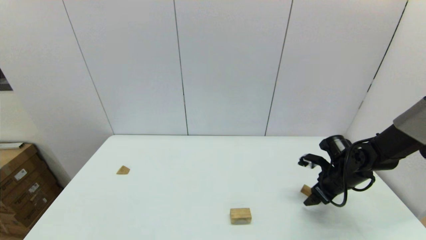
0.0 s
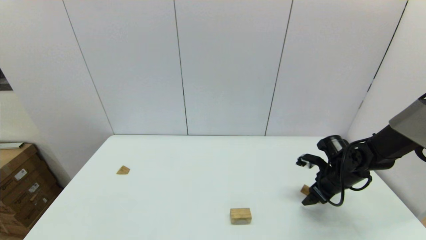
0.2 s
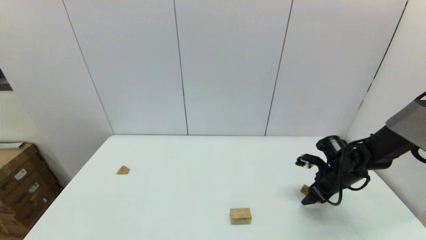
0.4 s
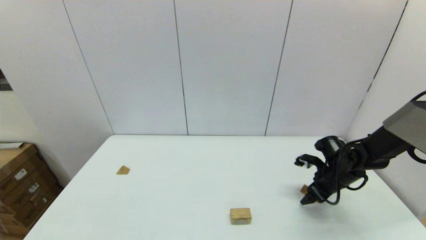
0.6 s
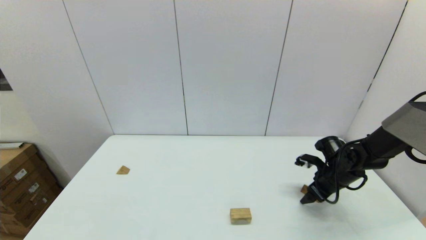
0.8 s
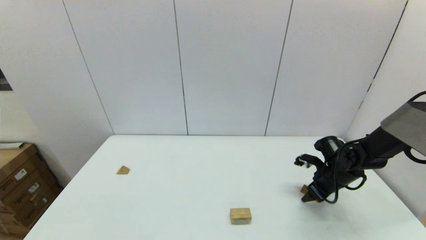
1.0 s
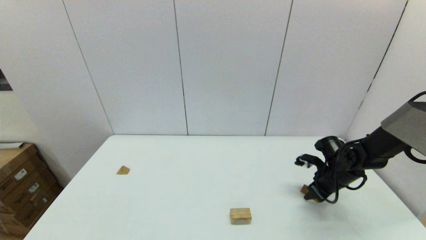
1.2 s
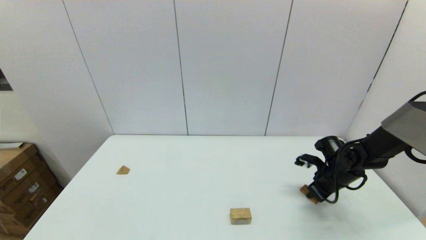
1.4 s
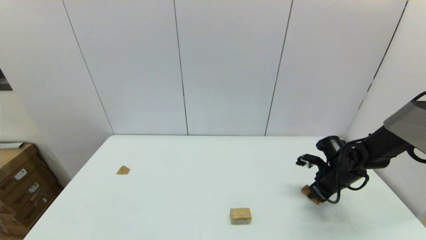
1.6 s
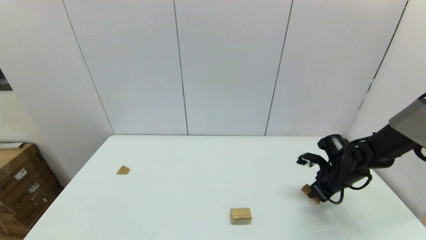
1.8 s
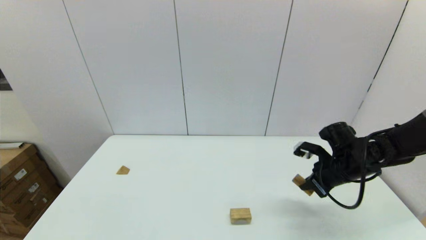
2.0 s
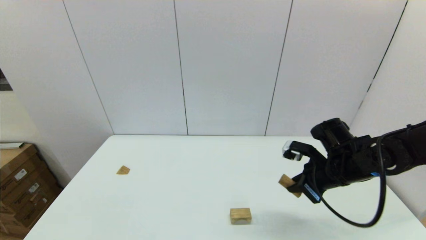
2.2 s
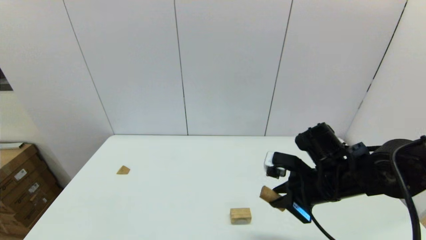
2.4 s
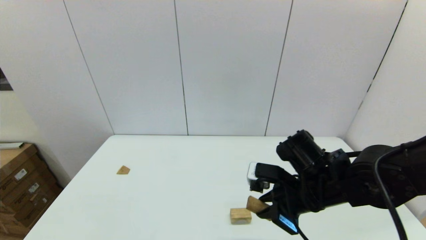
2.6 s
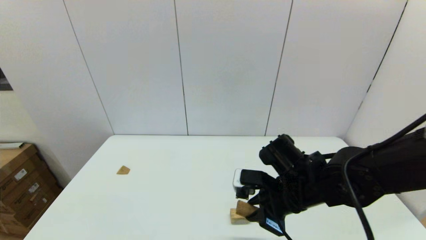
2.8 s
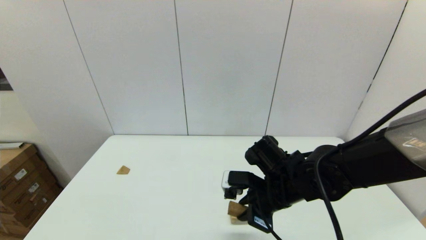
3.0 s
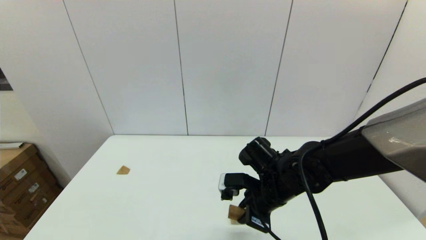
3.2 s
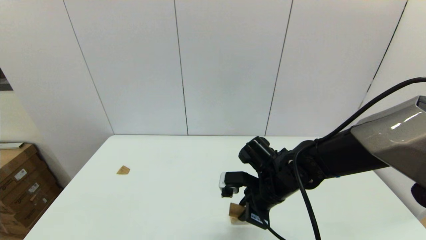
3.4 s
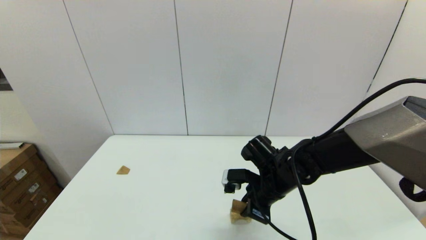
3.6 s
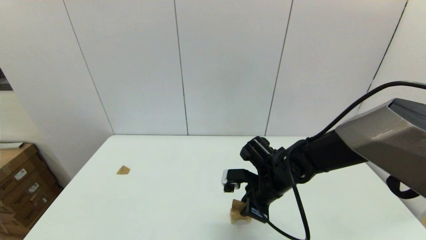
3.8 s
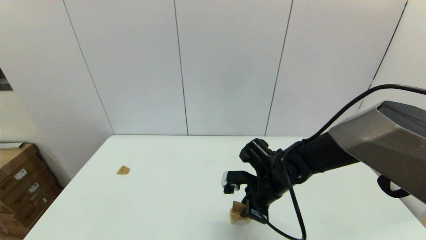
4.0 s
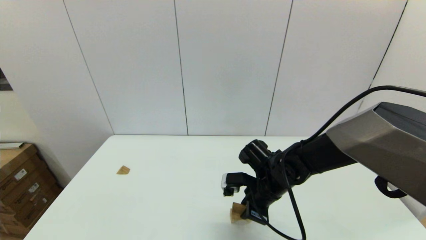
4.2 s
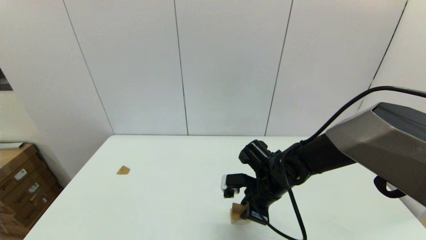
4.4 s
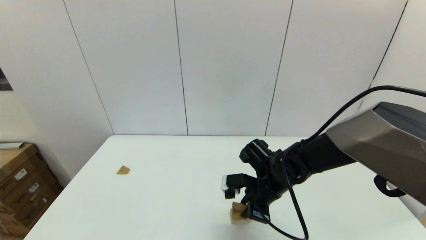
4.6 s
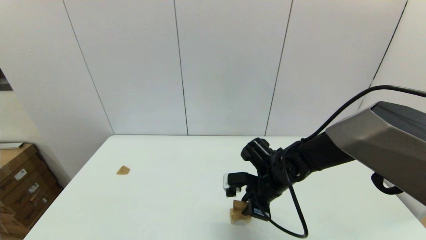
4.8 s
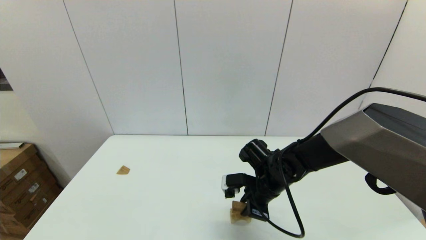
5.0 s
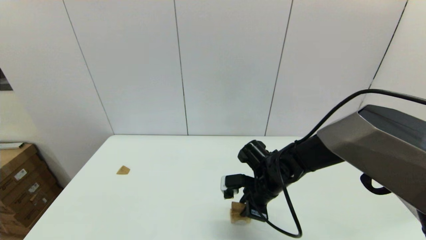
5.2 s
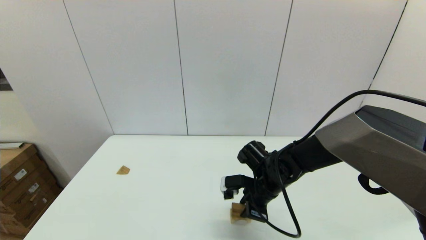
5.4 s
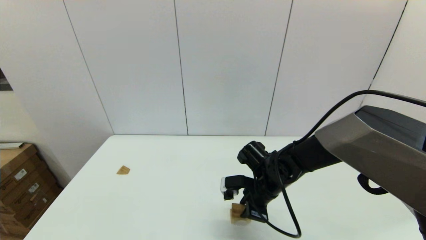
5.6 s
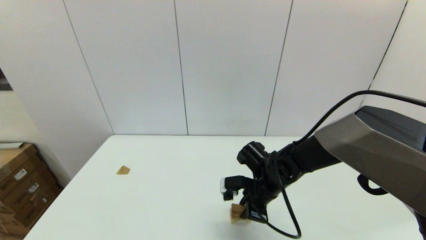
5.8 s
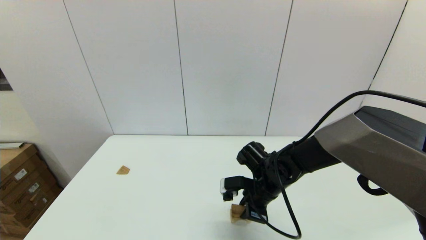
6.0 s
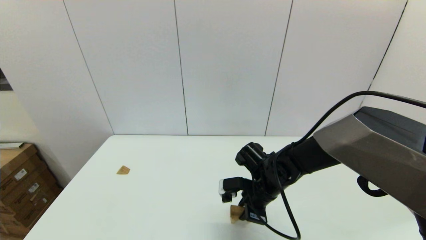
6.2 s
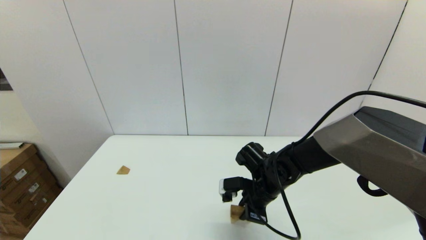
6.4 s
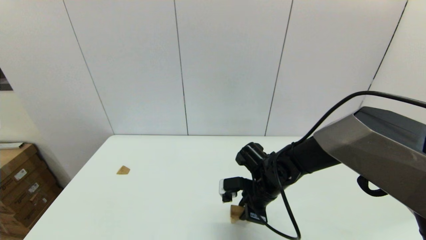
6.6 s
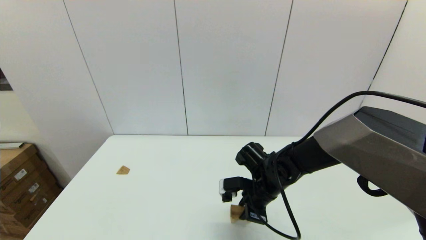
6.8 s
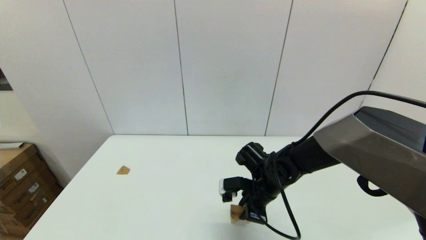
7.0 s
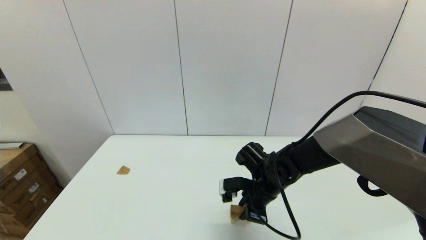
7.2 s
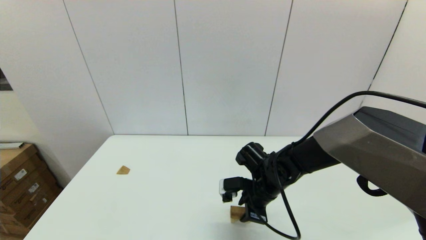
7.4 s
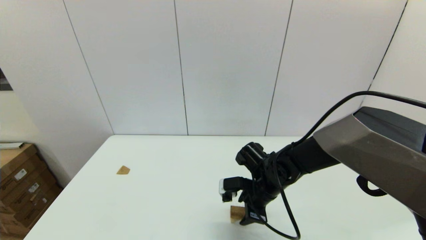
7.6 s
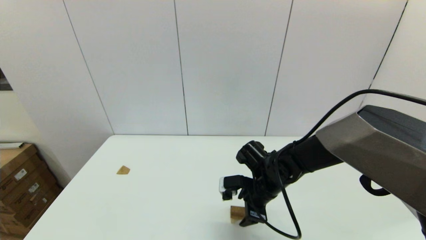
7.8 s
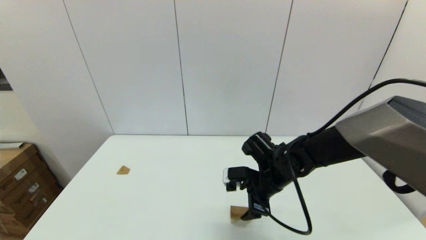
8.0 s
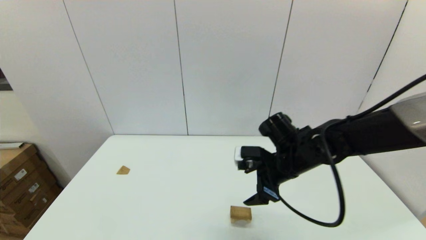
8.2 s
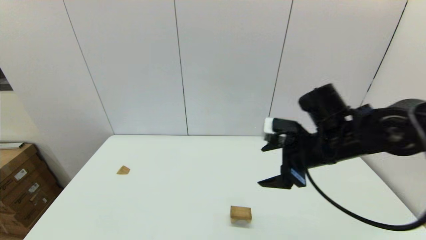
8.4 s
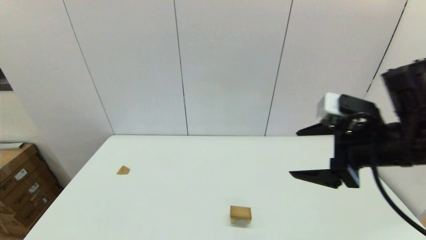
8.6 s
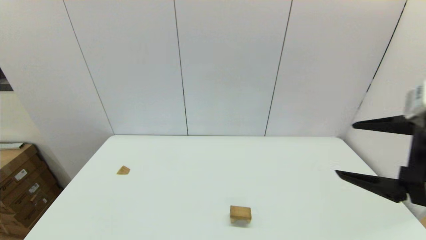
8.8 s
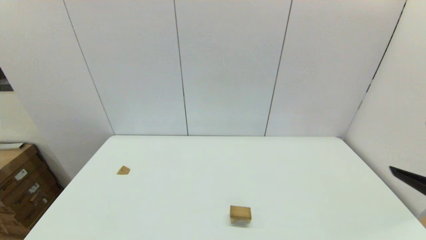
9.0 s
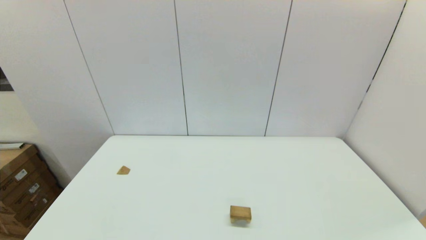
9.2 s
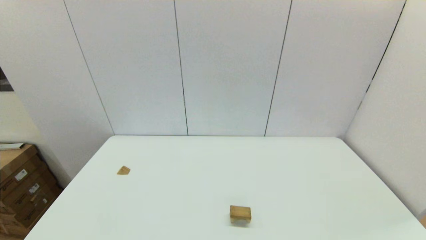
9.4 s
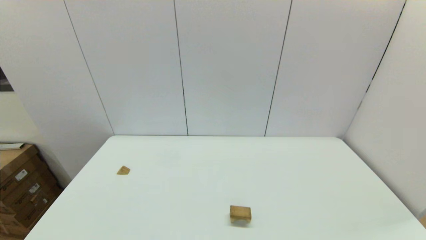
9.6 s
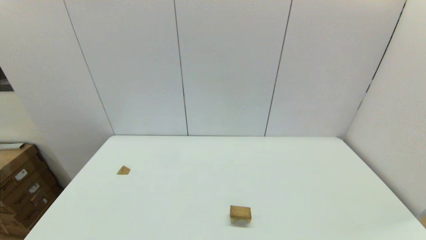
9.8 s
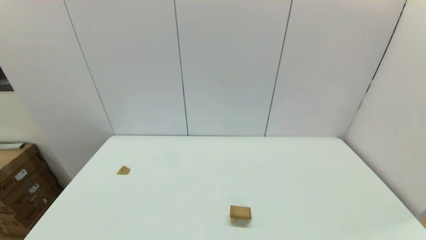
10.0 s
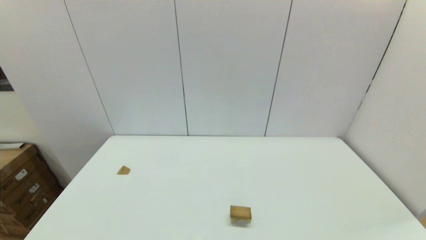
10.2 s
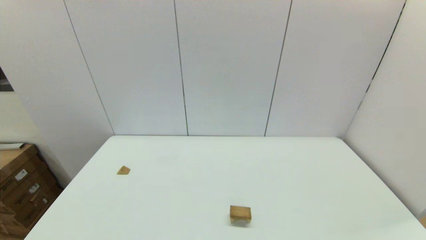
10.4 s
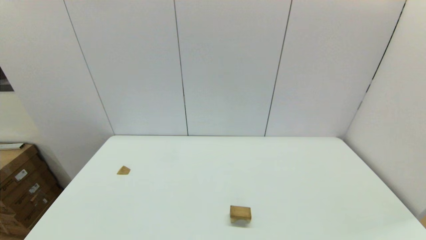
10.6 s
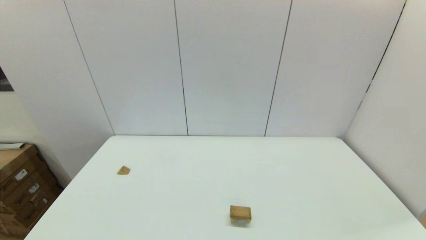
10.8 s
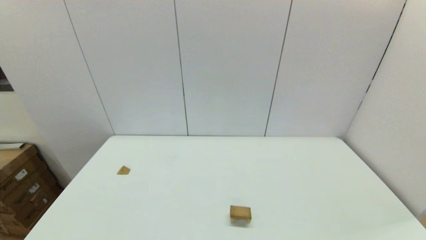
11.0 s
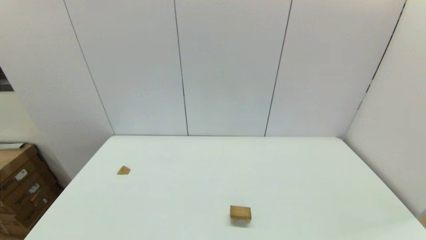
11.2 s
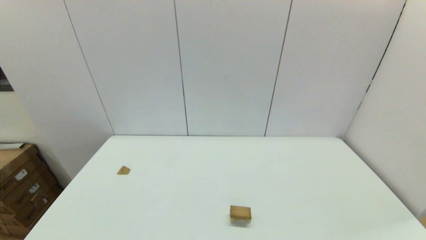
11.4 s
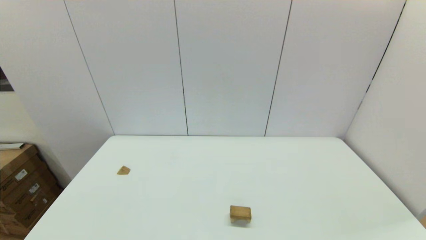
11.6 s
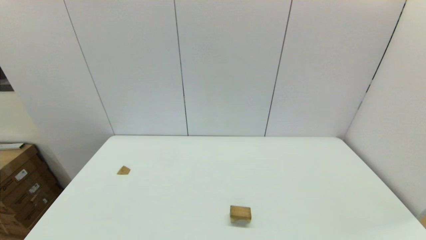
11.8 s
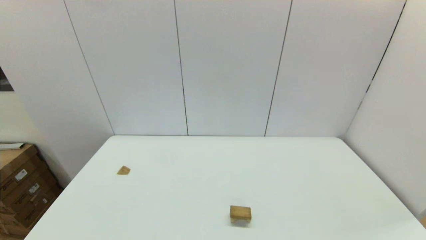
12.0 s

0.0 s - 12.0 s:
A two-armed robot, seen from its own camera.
Task of the whole recording: place the arched building blocks in the center of the table, set up the rectangular building blocks, and then set up the triangular building blocks.
Step, 1.6 s - 7.4 s: Place the box-shaped block onto the arch-shaped block with the right gripper.
0.0 s - 1.6 s: The right gripper closes its fingers.
1.6 s - 3.0 s: The right gripper is displaced to the left and backward by approximately 25 cm.
3.0 s - 4.4 s: The right gripper ends up some 5 cm from where it was.
4.4 s - 6.0 s: There are only small adjustments of the grippers.
6.0 s - 7.6 s: The right gripper opens its fingers.
7.6 s - 9.0 s: The right gripper moves upward, backward and to the right, approximately 40 cm, and opens.

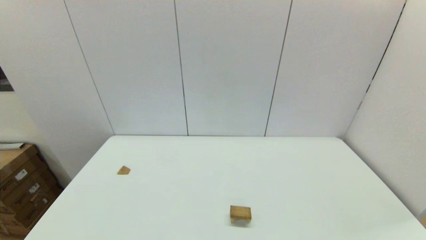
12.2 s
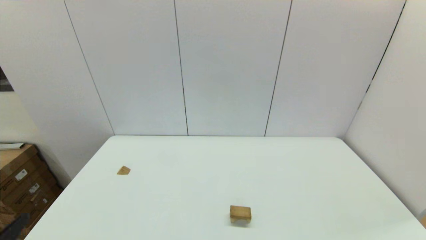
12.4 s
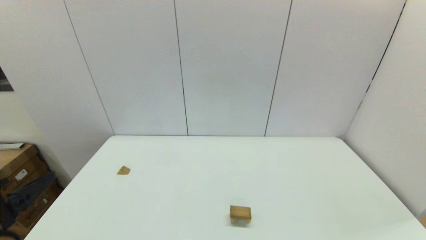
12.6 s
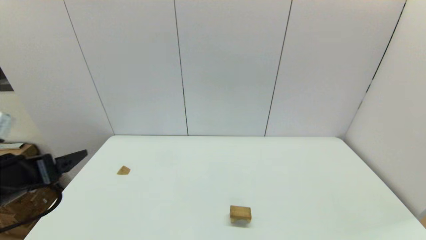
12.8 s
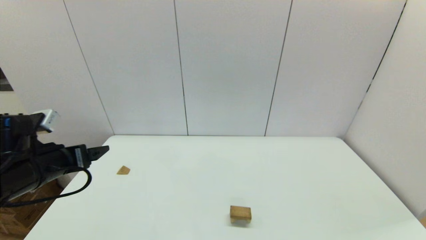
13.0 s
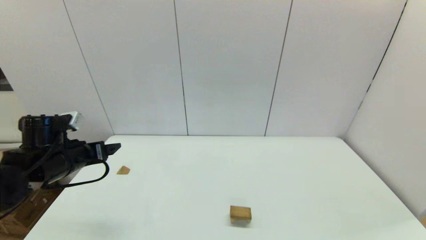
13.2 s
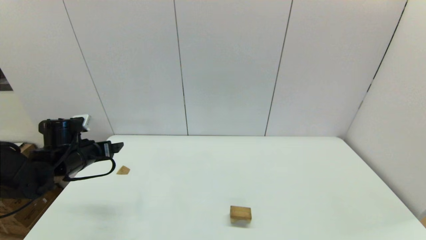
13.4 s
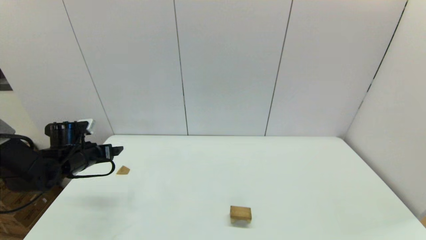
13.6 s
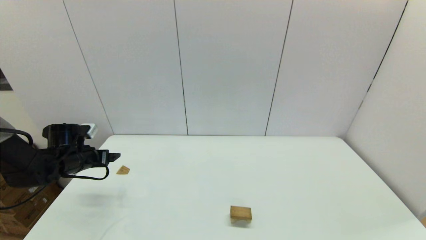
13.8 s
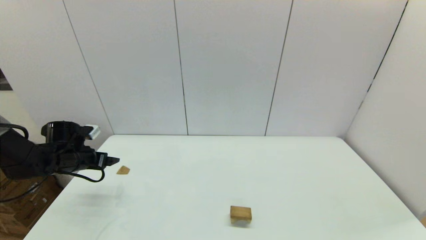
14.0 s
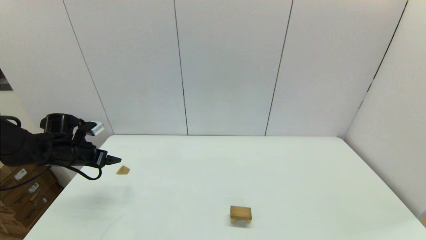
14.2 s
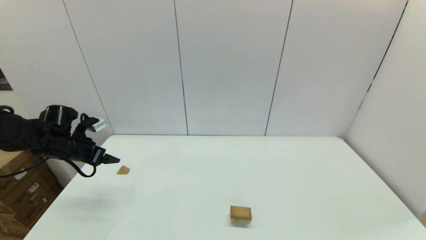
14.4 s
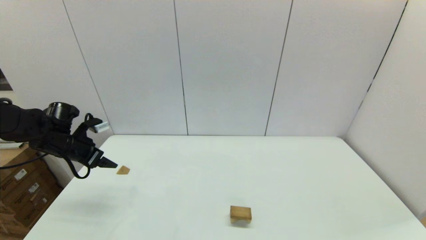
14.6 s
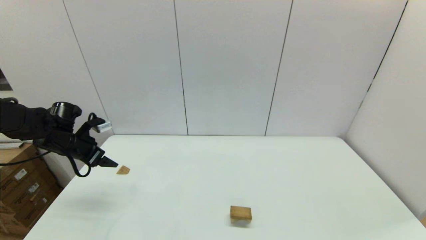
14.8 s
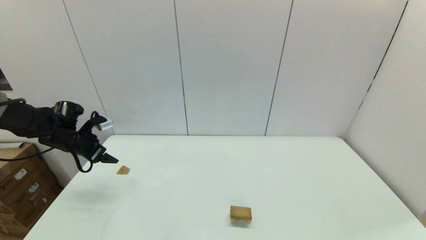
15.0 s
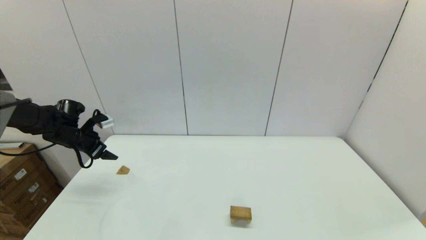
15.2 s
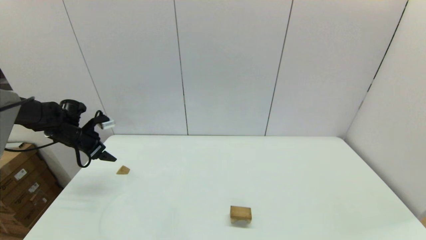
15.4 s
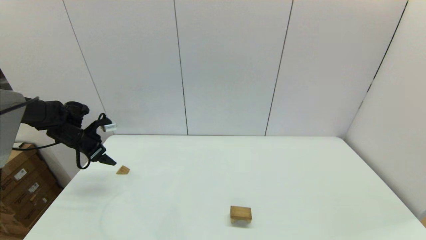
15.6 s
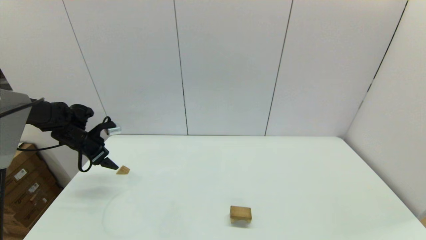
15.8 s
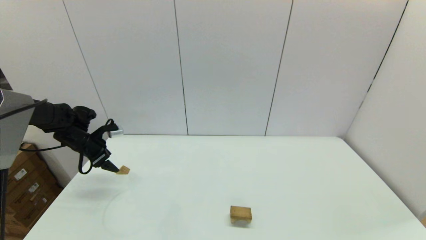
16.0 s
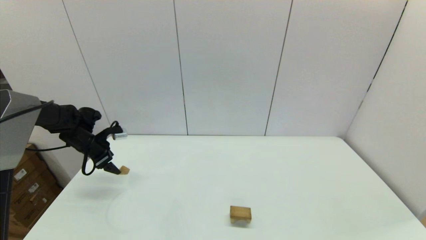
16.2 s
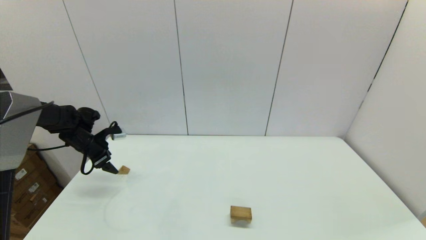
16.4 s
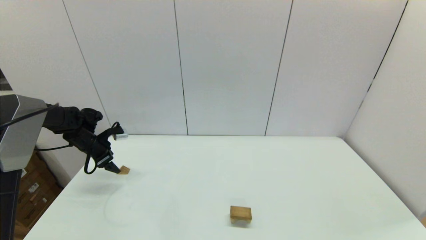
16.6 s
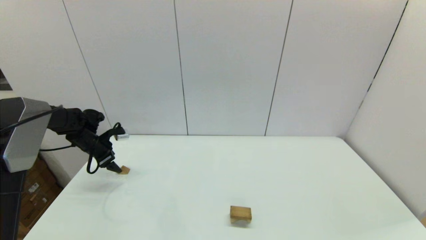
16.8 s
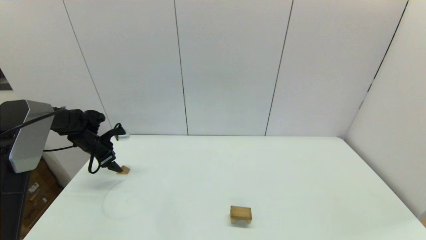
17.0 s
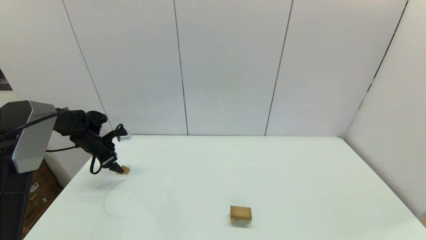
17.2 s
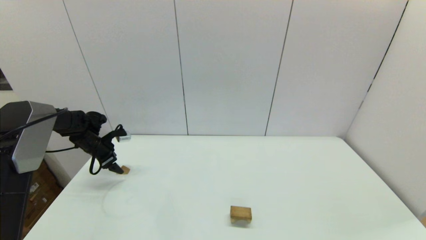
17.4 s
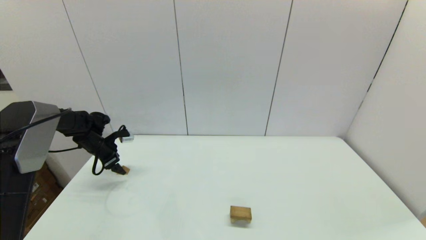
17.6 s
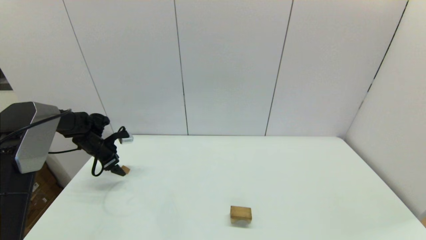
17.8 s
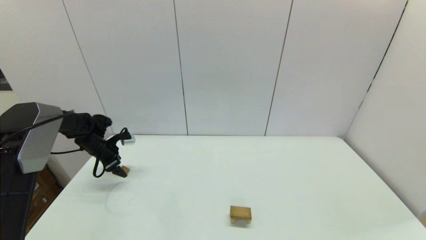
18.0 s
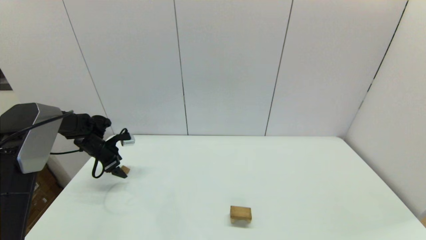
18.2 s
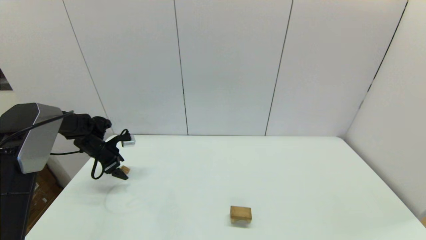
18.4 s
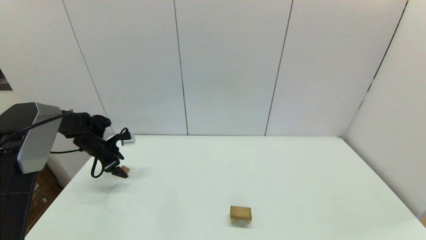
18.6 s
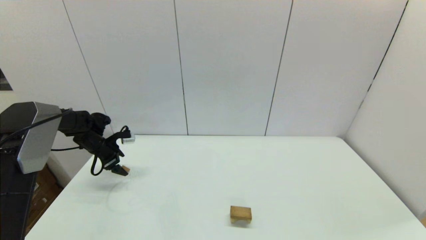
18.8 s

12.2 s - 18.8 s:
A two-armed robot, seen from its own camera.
Task of the whole recording: place the arched building blocks in the center of the table, set up the rectangular building blocks, and then set up the triangular building blocks.
12.2 s - 13.8 s: The left gripper shifts about 35 cm forward.
13.8 s - 15.4 s: The left gripper moves forward, roughly 10 cm.
15.4 s - 17.2 s: The left gripper is displaced downward by about 5 cm.
17.2 s - 18.8 s: The grippers make only small movements.
